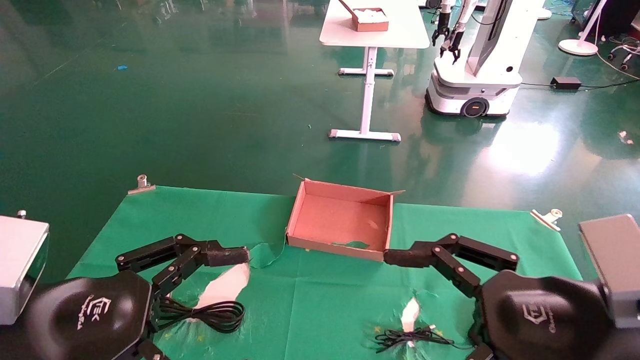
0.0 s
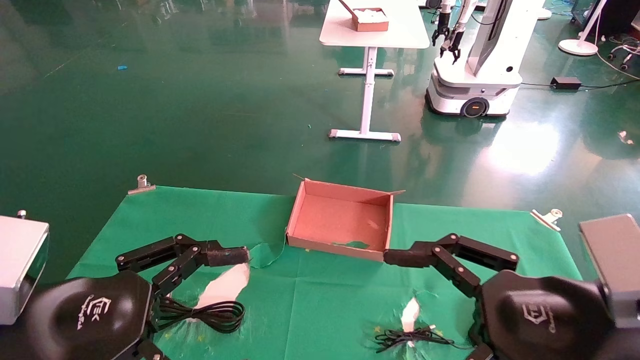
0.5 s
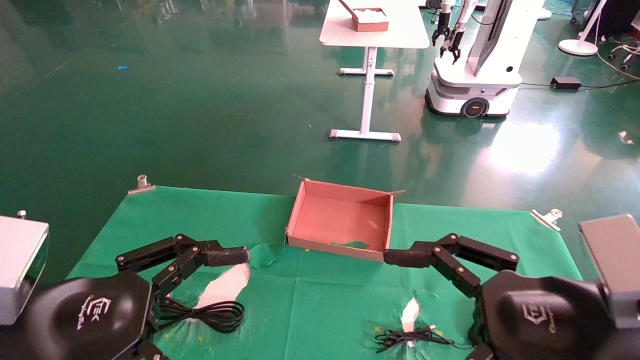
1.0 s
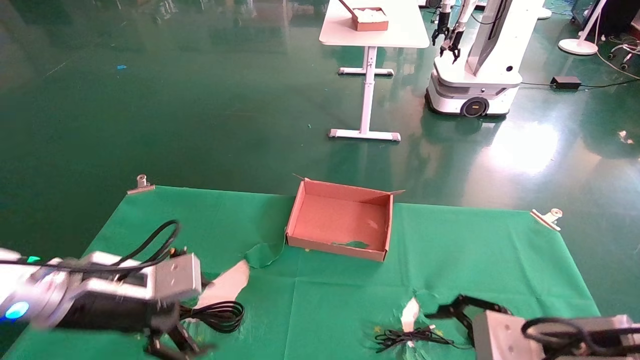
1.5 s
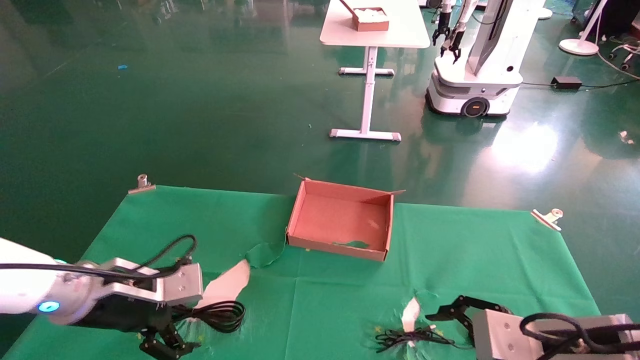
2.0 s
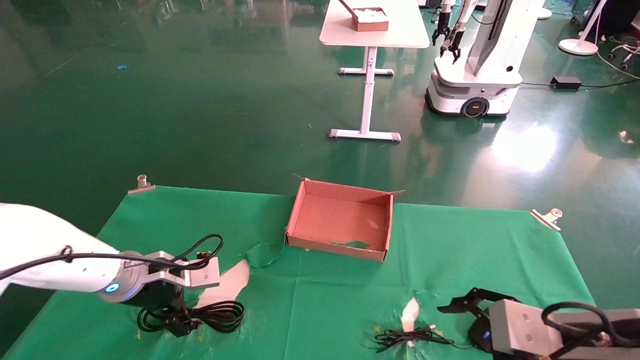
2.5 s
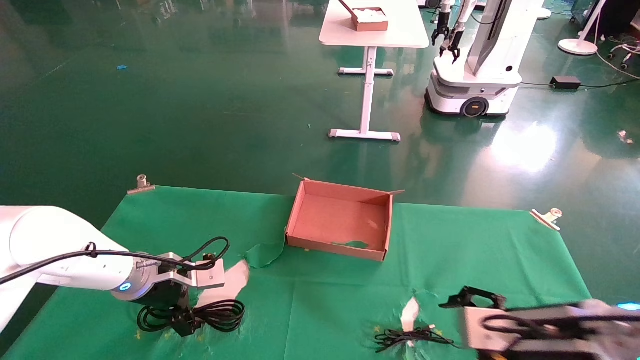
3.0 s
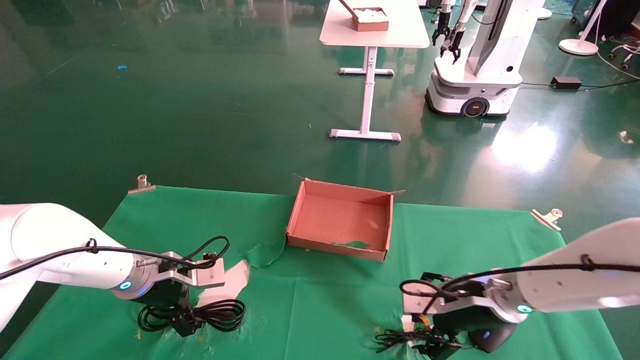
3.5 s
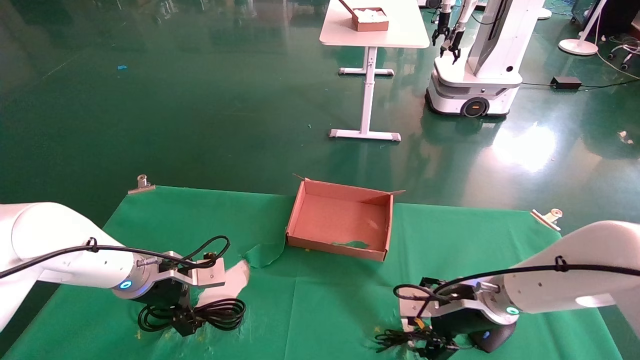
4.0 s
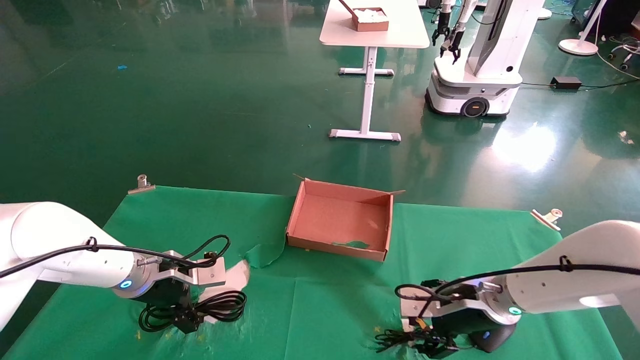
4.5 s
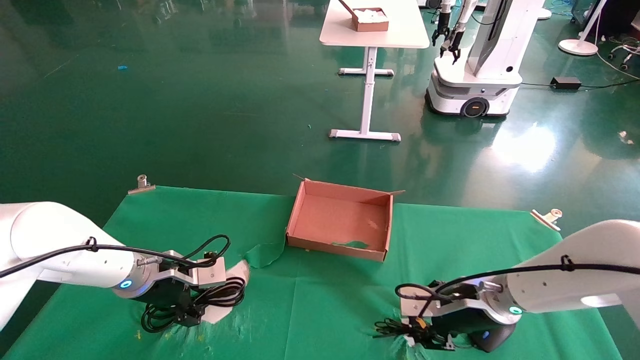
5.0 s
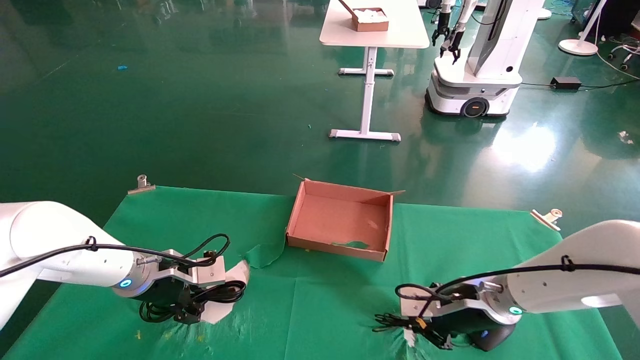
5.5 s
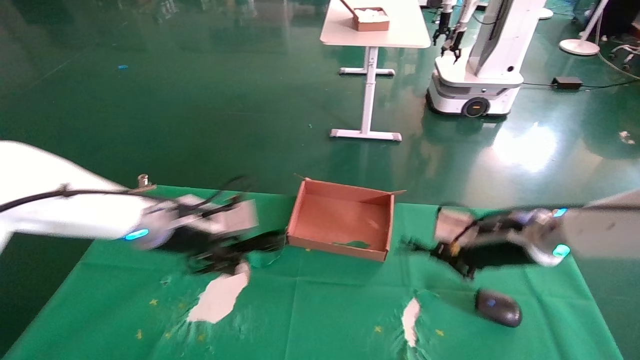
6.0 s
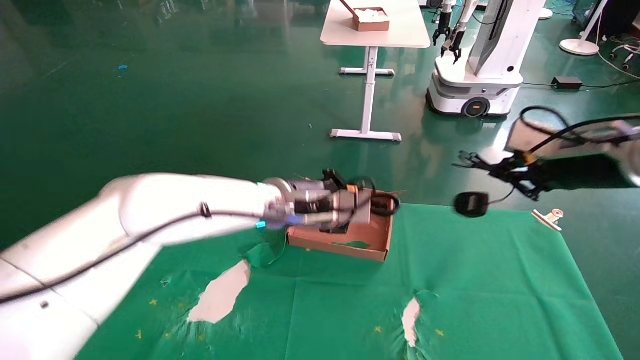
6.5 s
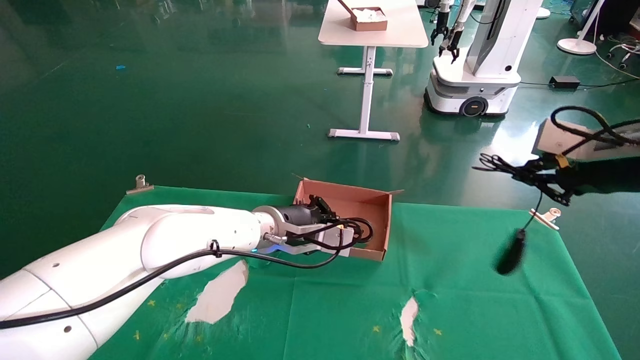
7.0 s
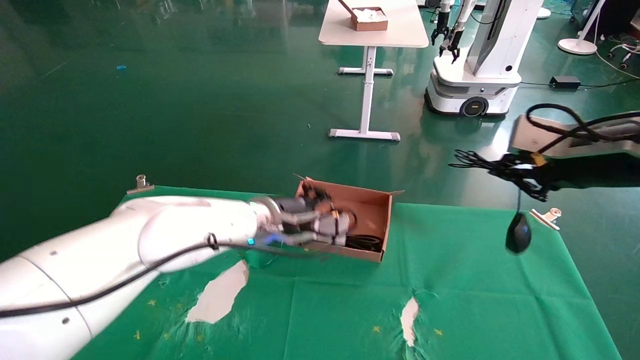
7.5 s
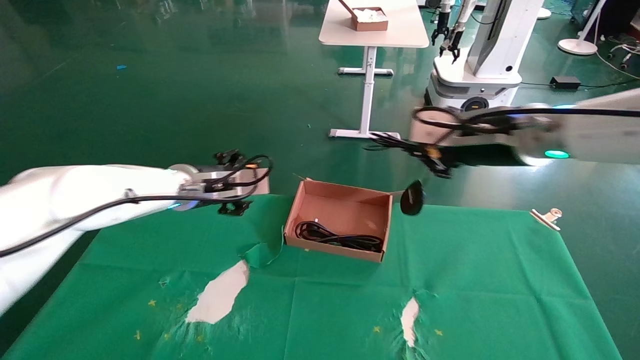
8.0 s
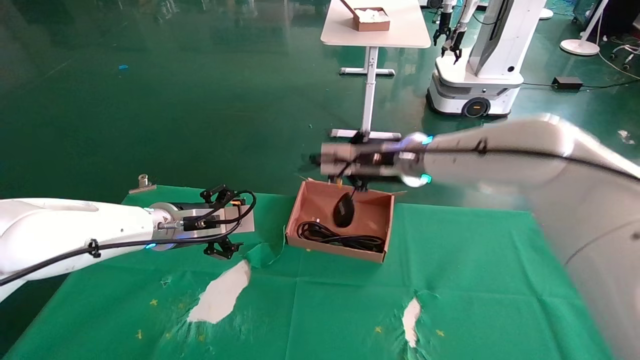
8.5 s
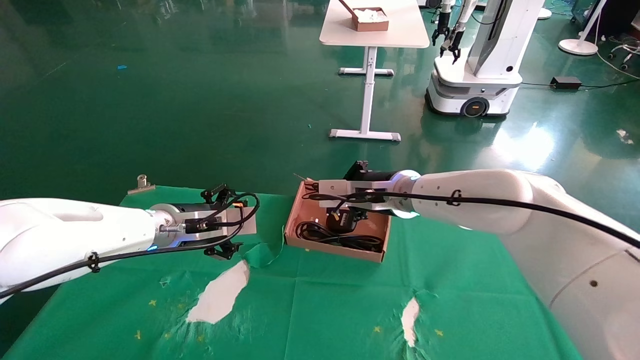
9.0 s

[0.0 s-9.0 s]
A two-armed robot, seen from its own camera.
Step, 1.5 to 5.0 s: Grab and lift both the mouse and power cord from the accessory packaging area at the same time.
0.0 to 2.0 s: The left gripper moves forward, roughly 15 cm. The right gripper shifts some 10 cm downward and forward.
2.0 to 4.5 s: The right gripper shifts about 15 cm forward. The left gripper shifts about 10 cm forward.
4.5 to 7.0 s: The left gripper travels to the right by approximately 20 cm, and closes. Meanwhile the right gripper moves upward and to the right, roughly 25 cm, and closes up.
7.0 to 9.0 s: The left gripper shifts some 15 cm to the left, and opens, while the right gripper shifts some 30 cm to the left and forward.

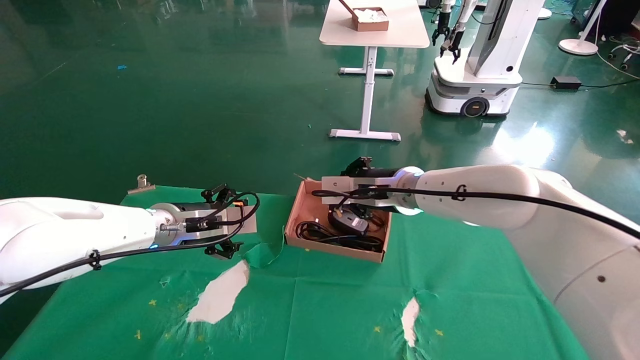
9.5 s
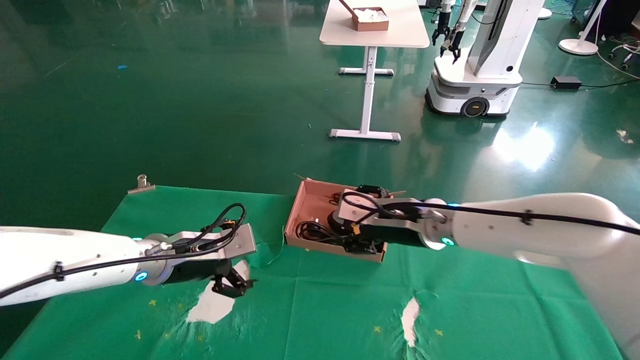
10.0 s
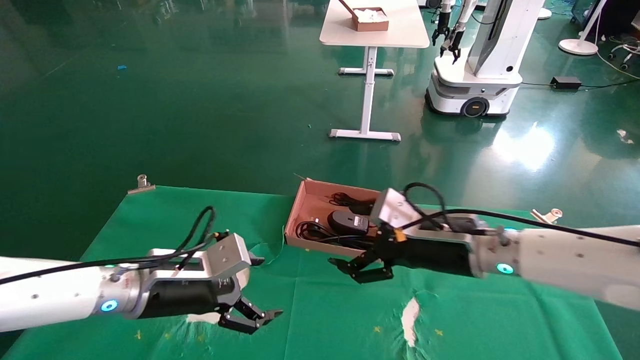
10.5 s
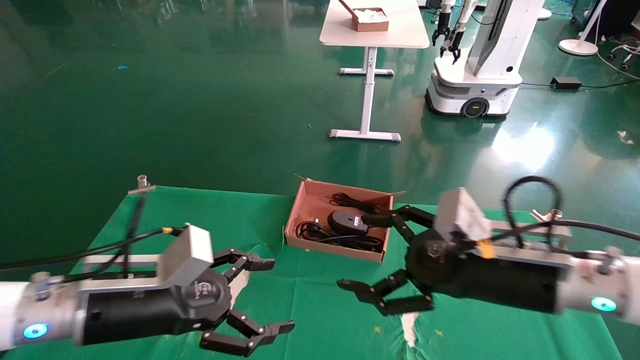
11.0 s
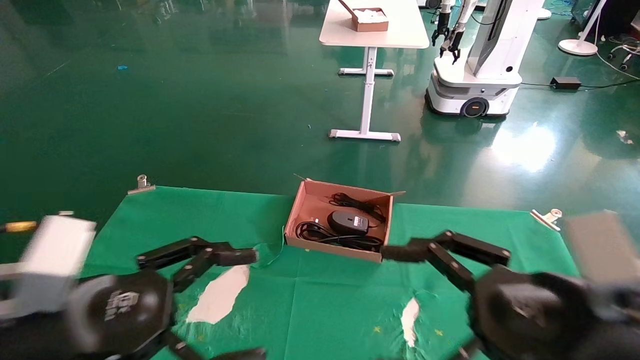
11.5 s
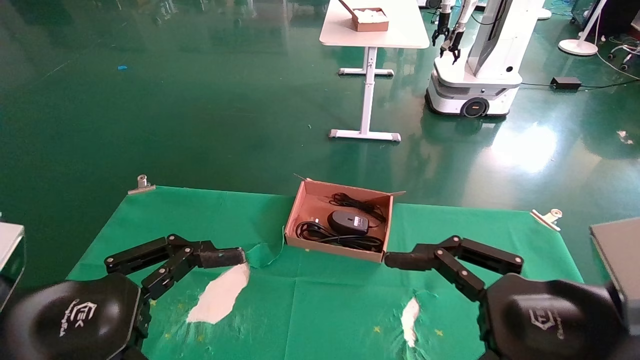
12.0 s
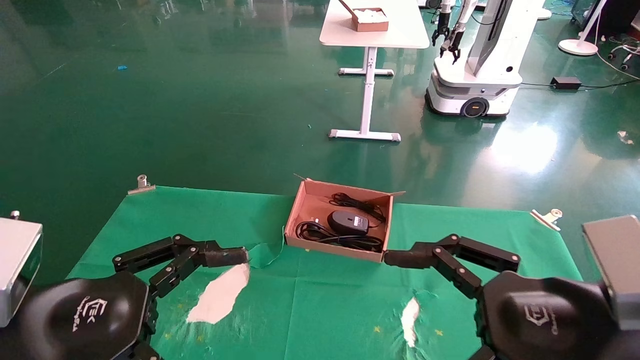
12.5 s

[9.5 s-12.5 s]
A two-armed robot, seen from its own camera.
9.5 to 11.0 s: The right gripper is displaced backward and to the right by roughly 20 cm, and opens up. Meanwhile the left gripper shifts approximately 15 cm backward.
11.0 to 12.5 s: Both grippers move backward, some 10 cm.

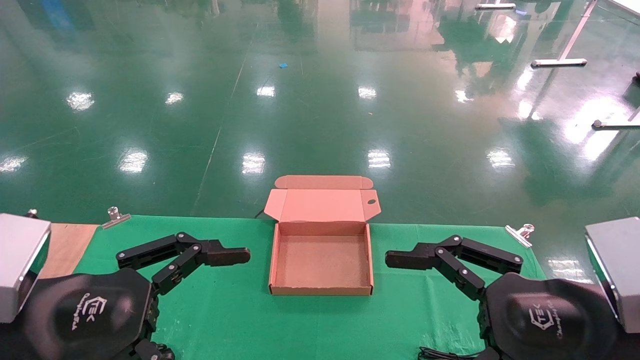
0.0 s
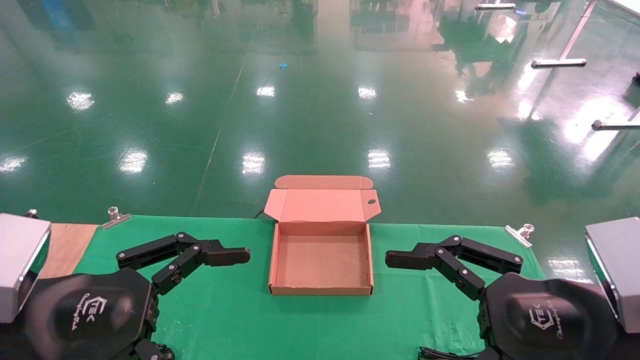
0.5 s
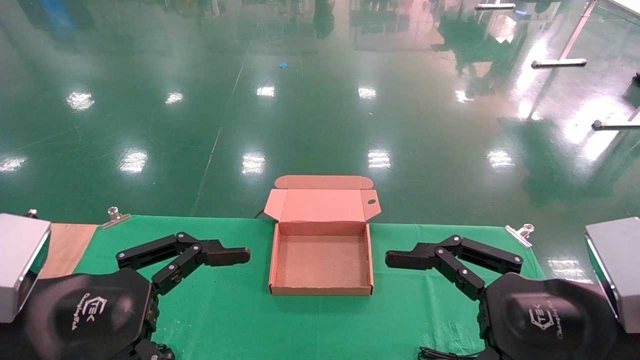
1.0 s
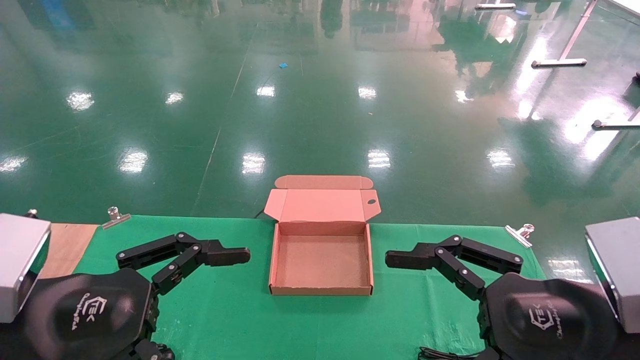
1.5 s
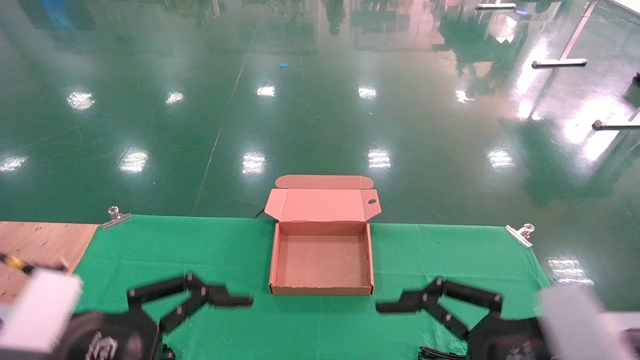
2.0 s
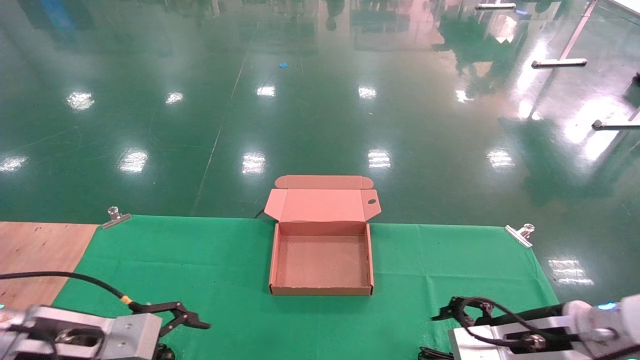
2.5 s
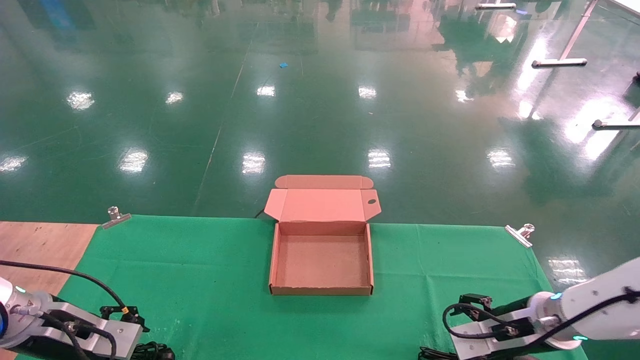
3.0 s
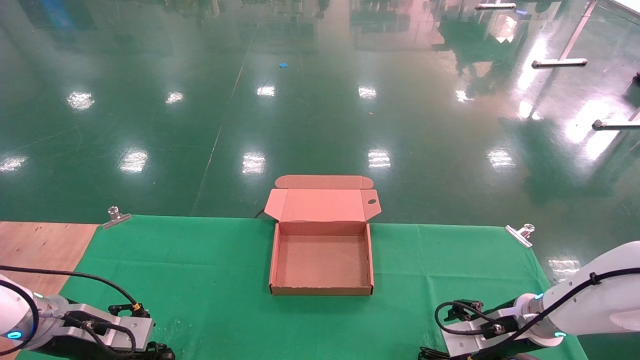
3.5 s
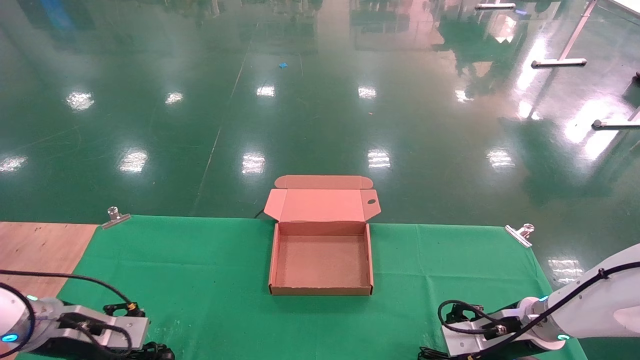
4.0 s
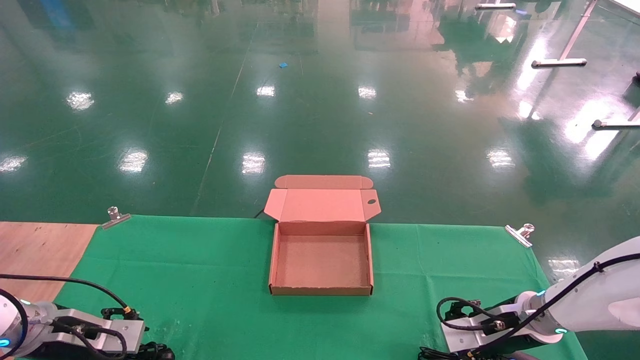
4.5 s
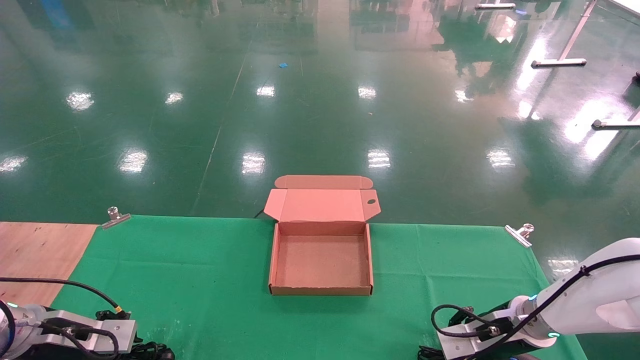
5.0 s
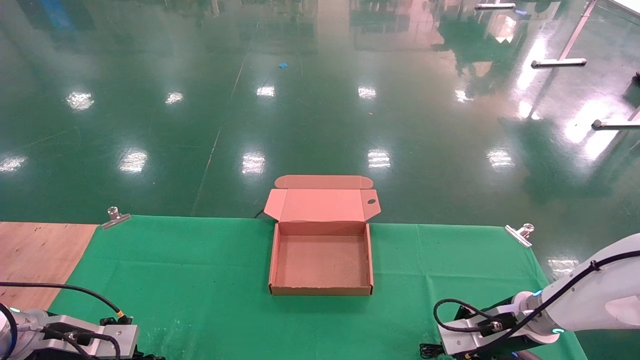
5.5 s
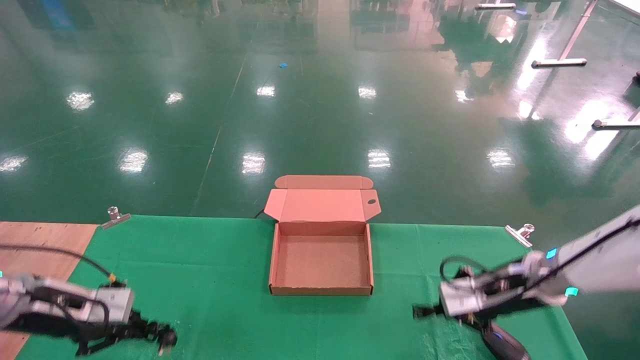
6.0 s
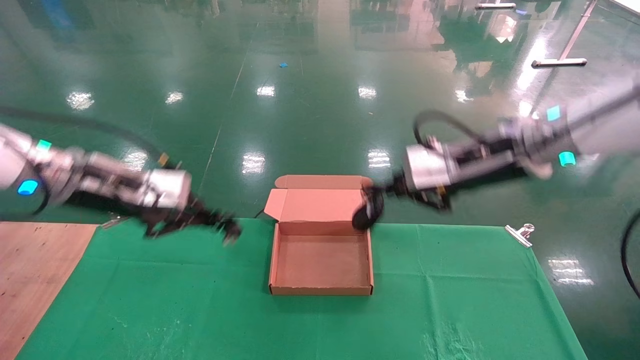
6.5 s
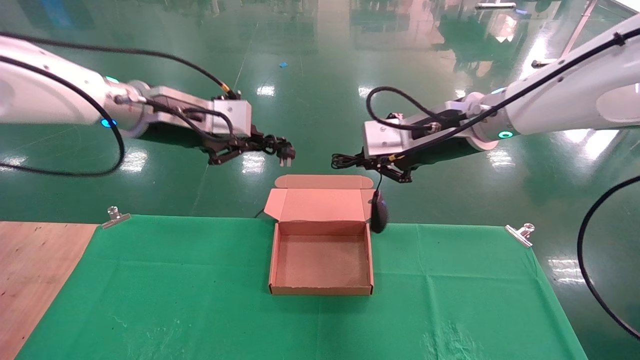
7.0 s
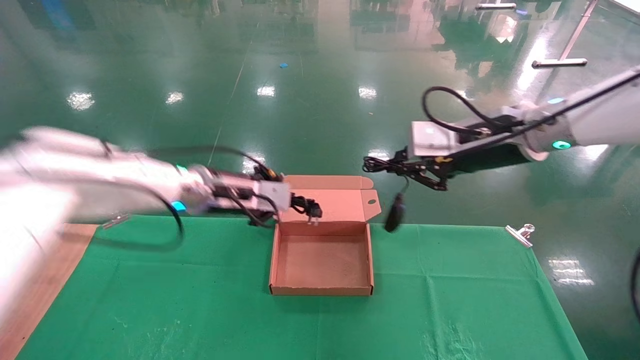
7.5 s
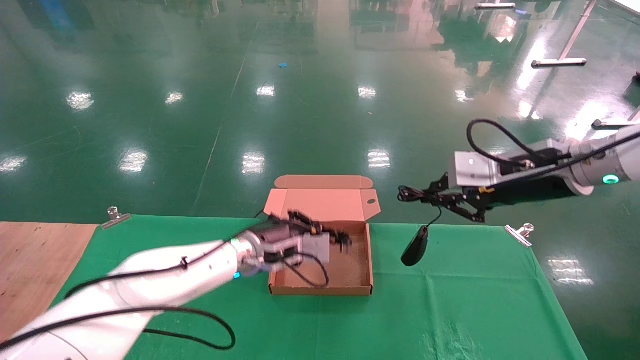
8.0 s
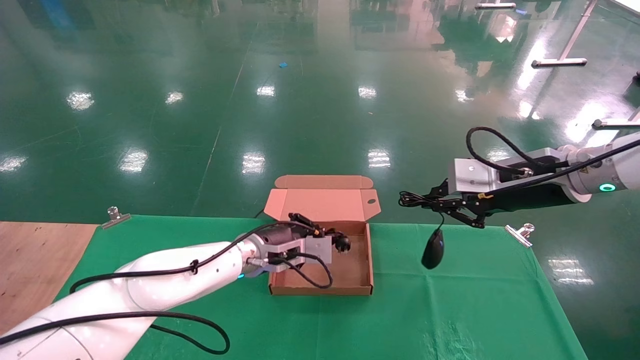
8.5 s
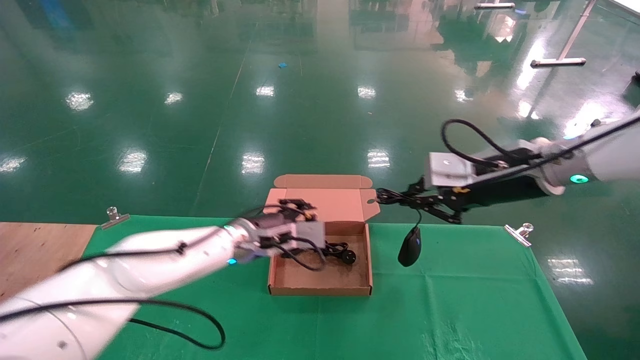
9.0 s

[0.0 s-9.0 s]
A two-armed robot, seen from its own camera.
Step, 2.5 to 6.0 s: Grab and lift both the mouse and power cord from the accessory packaging area at the same time.
0.0 to 2.0 s: The grippers make only small movements.
2.0 to 4.5 s: The left gripper is displaced forward, to the left and downward by about 25 cm. The right gripper moves forward and downward, some 25 cm.
4.5 to 7.0 s: The left gripper travels upward and to the right by about 35 cm, and closes up; the right gripper heads upward, covering roughly 30 cm, and closes its fingers.
7.0 to 9.0 s: The left gripper goes some 20 cm downward, while the right gripper is displaced to the right by roughly 5 cm.
